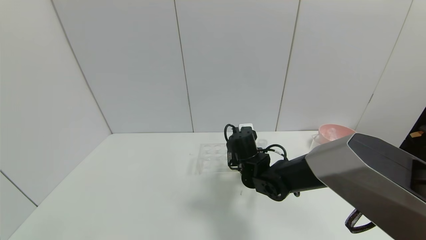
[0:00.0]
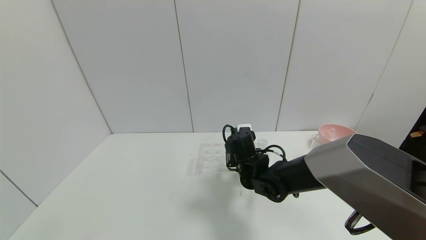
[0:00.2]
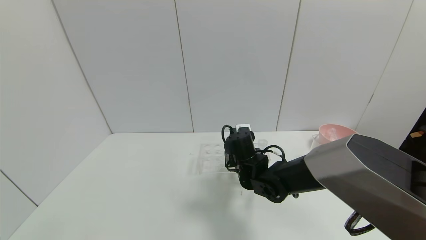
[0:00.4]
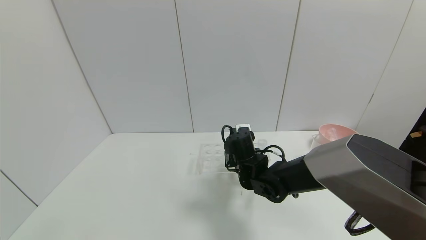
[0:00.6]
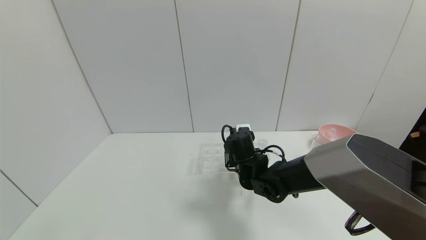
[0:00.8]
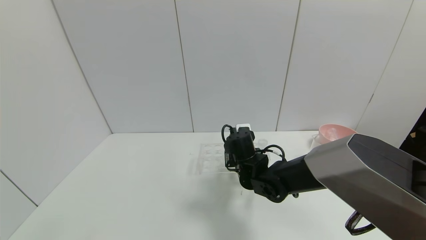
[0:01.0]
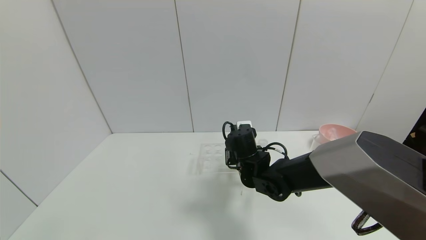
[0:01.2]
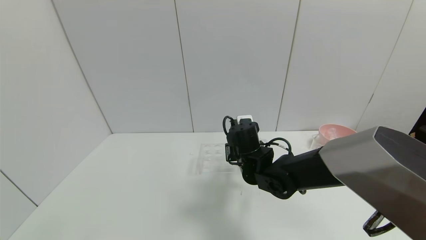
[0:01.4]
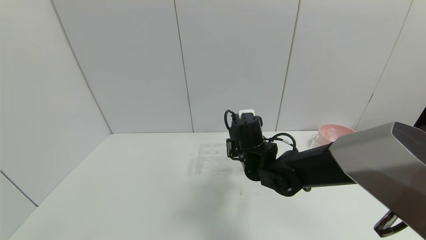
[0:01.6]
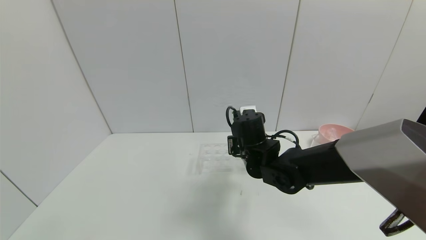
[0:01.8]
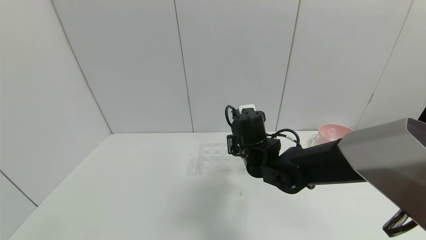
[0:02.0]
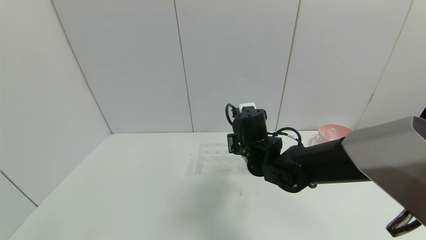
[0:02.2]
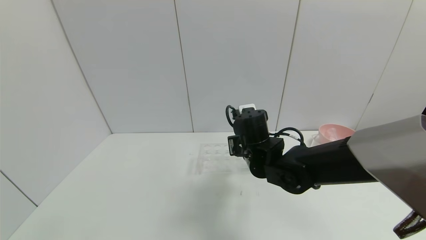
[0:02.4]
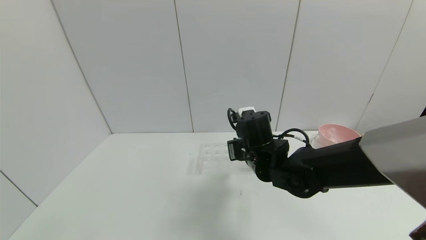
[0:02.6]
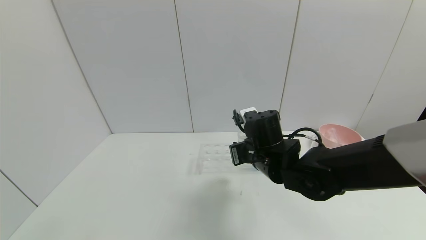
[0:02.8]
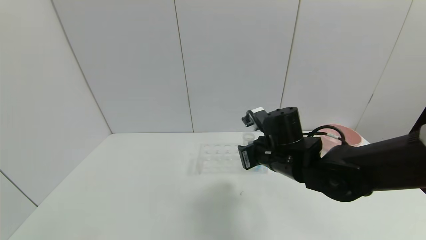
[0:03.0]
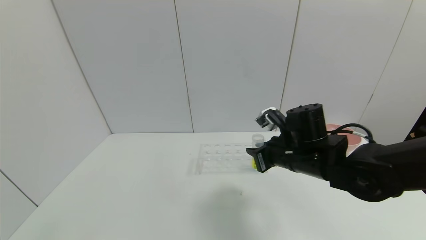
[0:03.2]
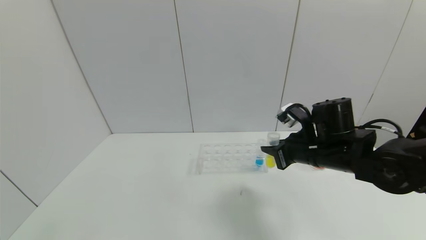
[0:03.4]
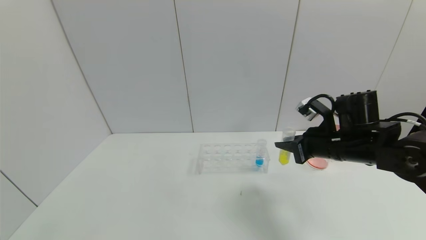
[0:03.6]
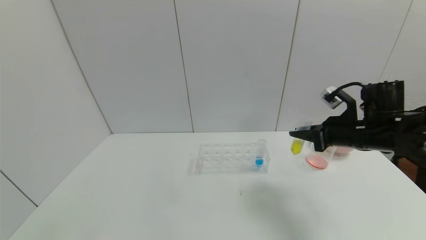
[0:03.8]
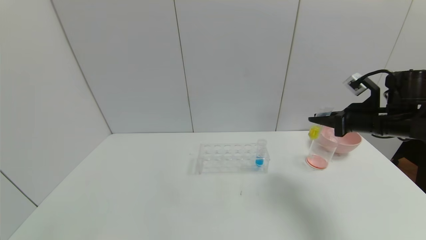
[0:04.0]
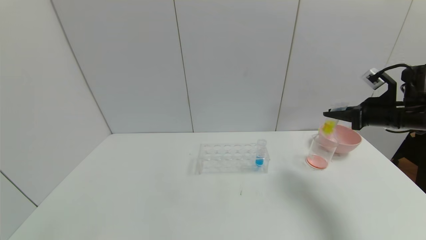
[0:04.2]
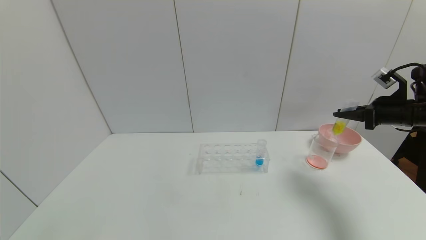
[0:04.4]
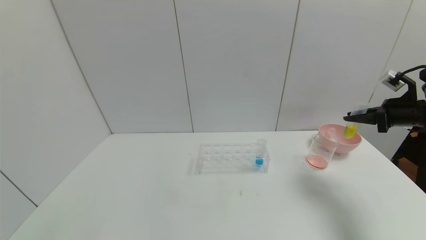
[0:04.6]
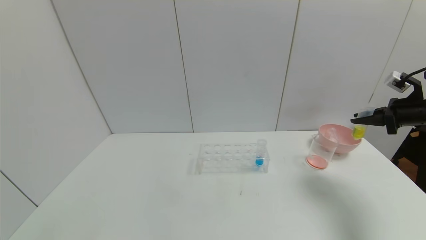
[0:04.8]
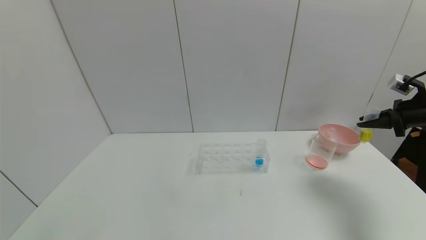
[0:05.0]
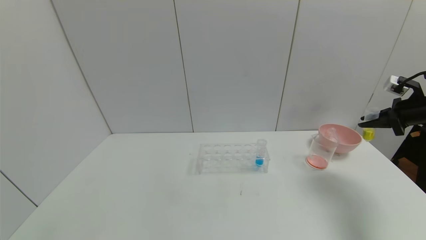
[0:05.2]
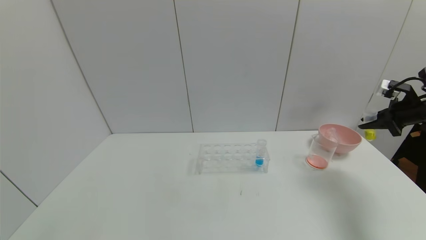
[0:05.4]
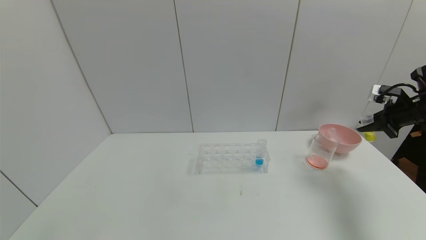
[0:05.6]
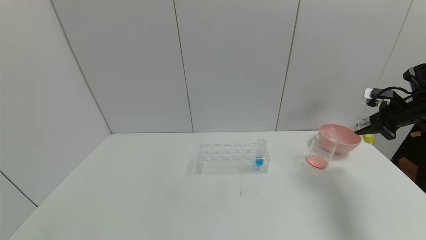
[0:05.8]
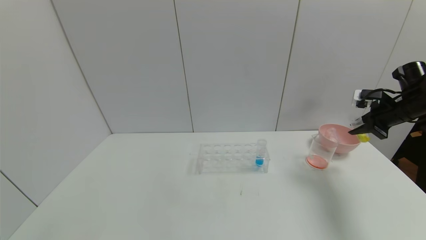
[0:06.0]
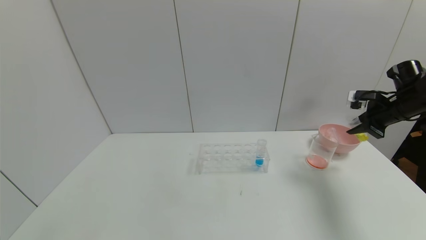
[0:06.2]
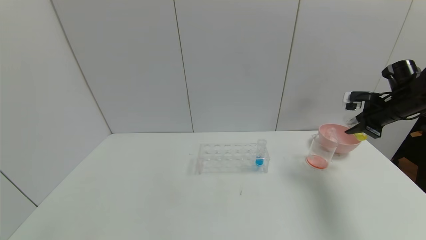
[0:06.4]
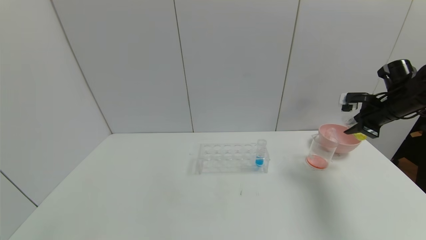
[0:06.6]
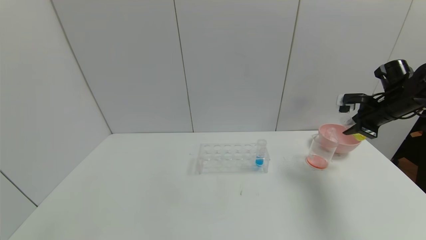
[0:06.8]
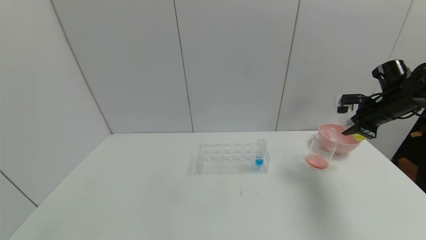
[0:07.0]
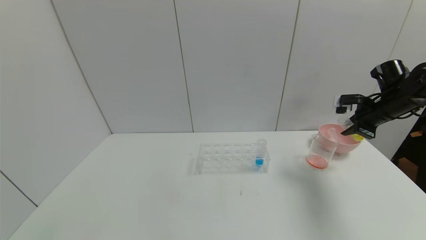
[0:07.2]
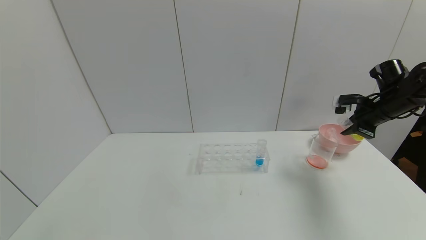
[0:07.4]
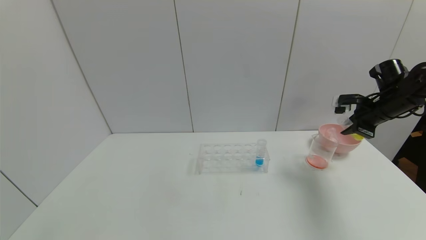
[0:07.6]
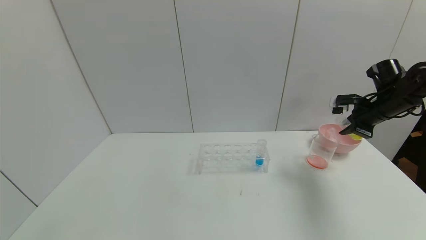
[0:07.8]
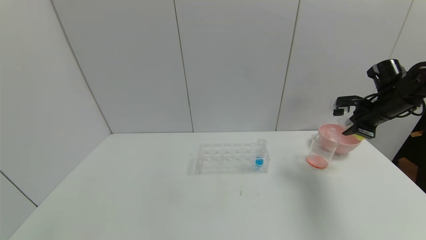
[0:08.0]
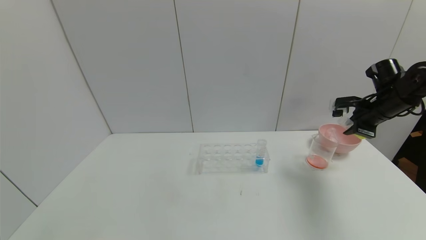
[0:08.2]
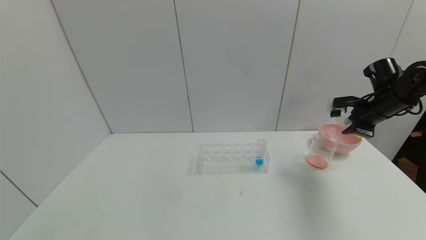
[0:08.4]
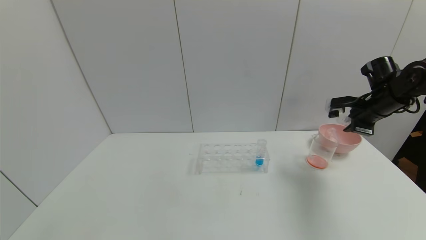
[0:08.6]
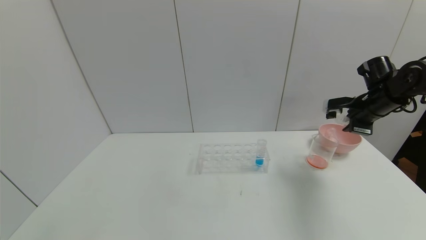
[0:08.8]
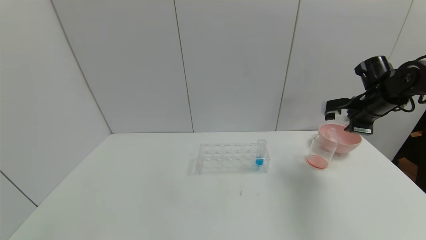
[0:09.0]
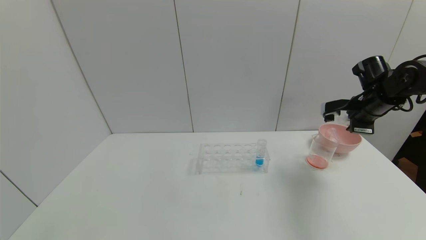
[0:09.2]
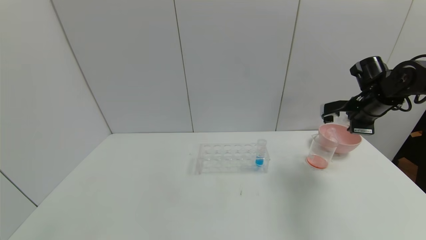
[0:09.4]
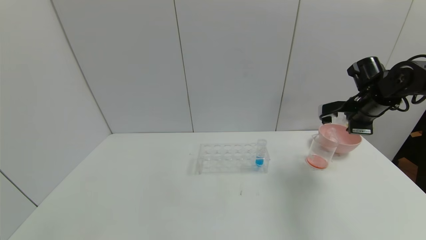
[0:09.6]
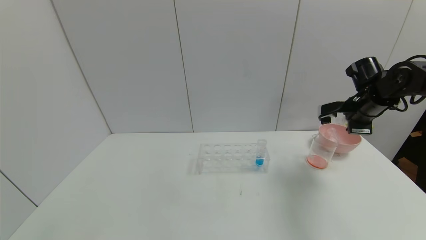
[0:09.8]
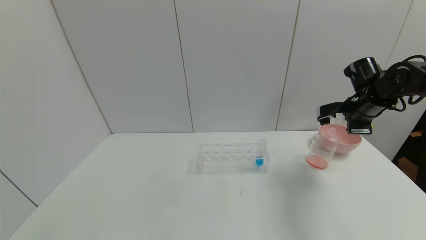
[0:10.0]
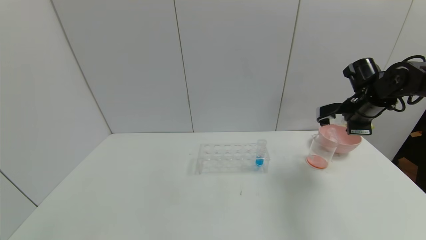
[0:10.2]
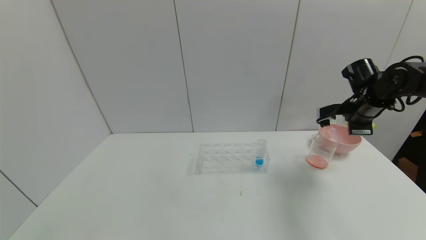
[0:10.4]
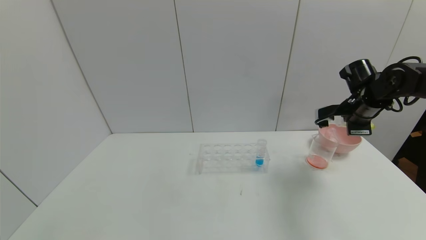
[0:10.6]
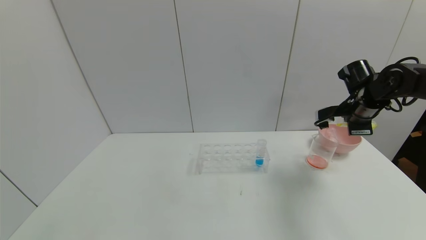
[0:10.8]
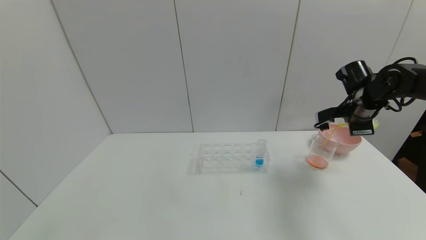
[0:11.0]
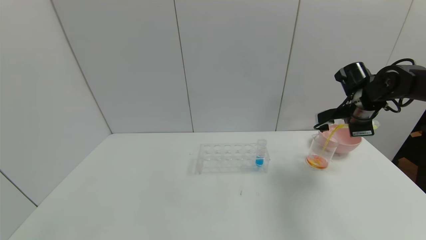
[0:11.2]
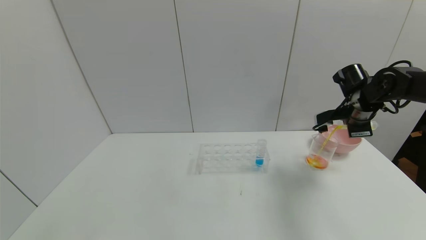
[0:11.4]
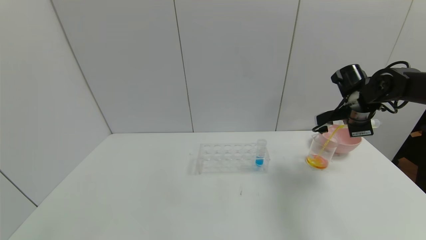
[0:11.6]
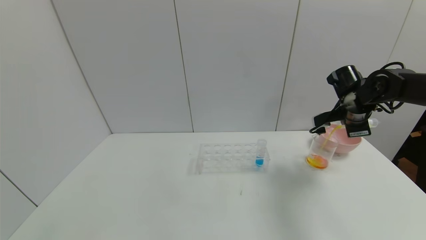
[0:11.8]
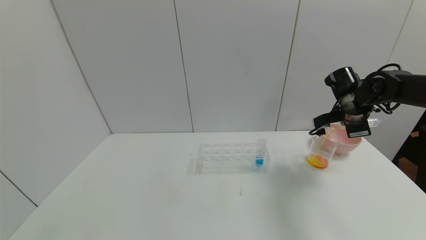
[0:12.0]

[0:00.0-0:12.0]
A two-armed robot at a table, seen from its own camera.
Task of the whole recording: pick up the test tube with yellow pigment and the test tube with red pigment by grippers and pour them into the beaker.
0:00.0 to 0:01.6: The right gripper ends up about 5 cm from where it was, and closes.
0:01.6 to 0:03.0: The right gripper travels to the right by about 5 cm.
0:03.0 to 0:04.4: The right gripper is displaced to the right by about 30 cm.
0:06.0 to 0:07.6: The grippers make only small movements.
0:07.6 to 0:09.0: There are only small adjustments of the grippers.
0:09.0 to 0:10.4: The grippers make only small movements.
0:10.4 to 0:12.0: The grippers make only small movements.

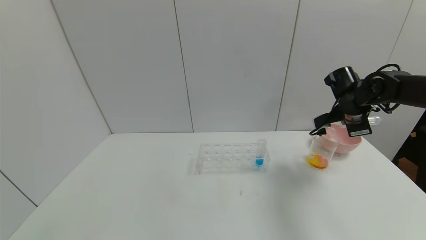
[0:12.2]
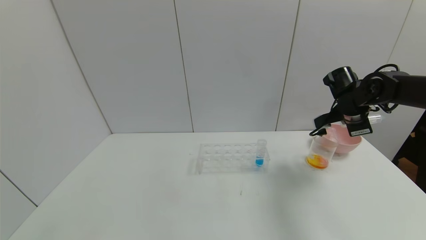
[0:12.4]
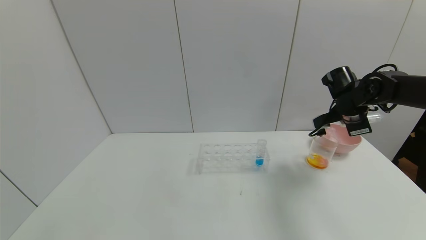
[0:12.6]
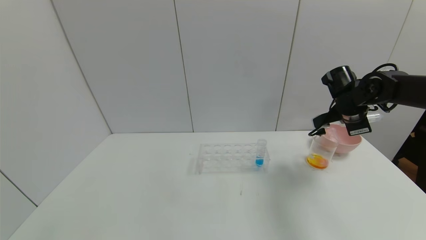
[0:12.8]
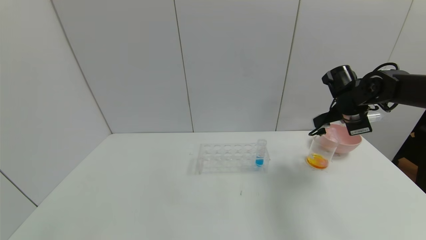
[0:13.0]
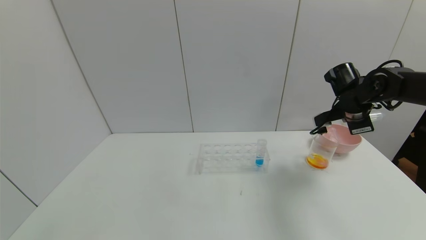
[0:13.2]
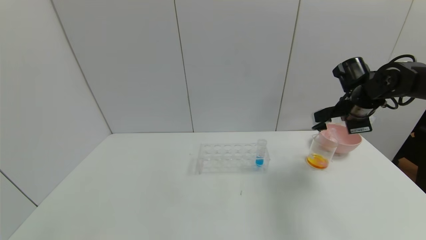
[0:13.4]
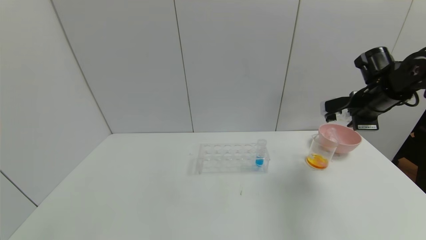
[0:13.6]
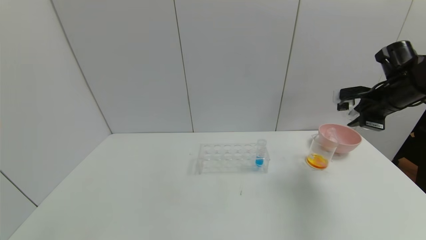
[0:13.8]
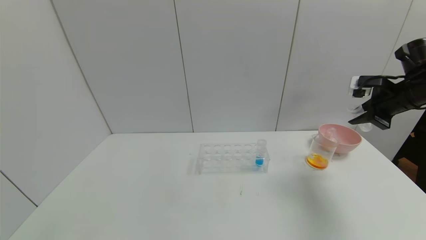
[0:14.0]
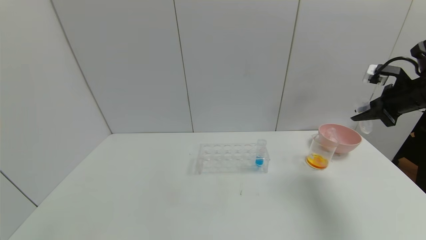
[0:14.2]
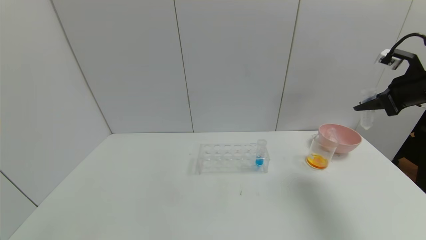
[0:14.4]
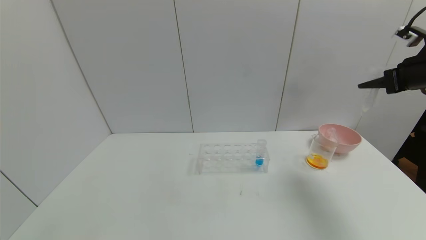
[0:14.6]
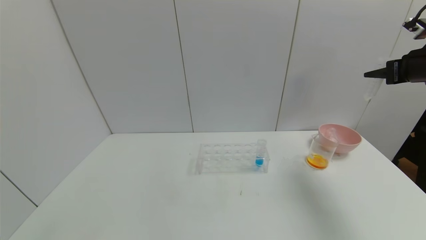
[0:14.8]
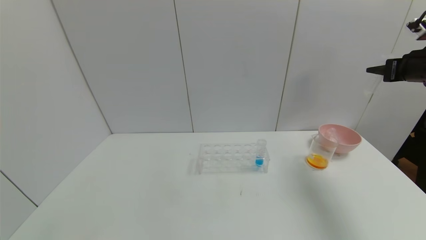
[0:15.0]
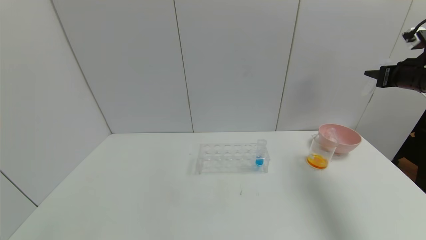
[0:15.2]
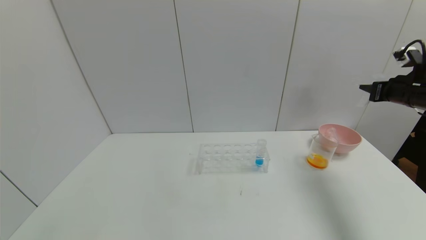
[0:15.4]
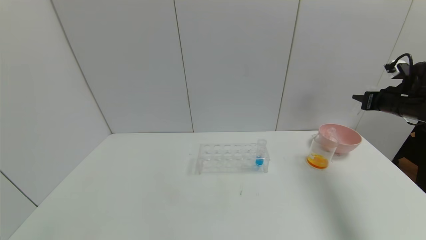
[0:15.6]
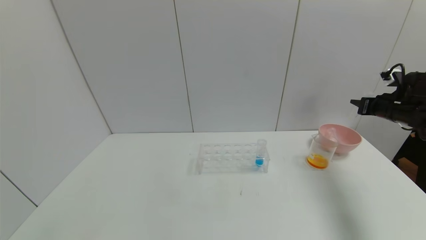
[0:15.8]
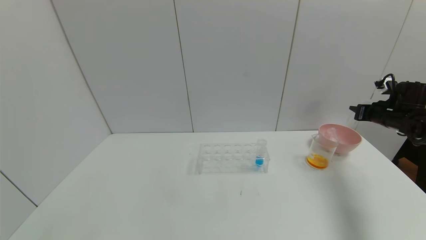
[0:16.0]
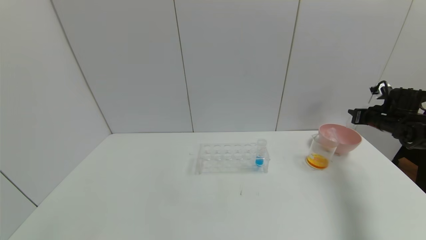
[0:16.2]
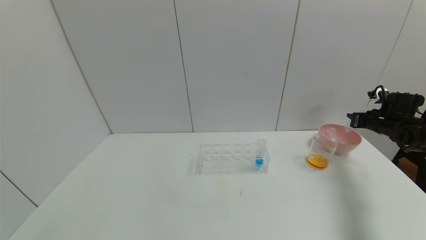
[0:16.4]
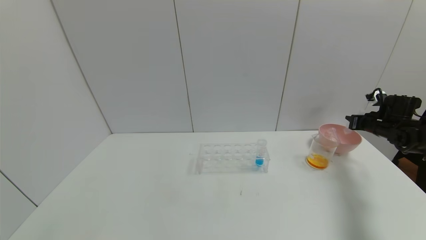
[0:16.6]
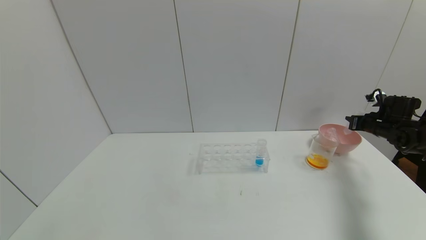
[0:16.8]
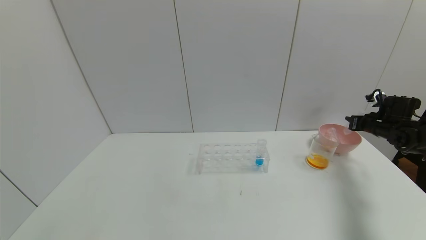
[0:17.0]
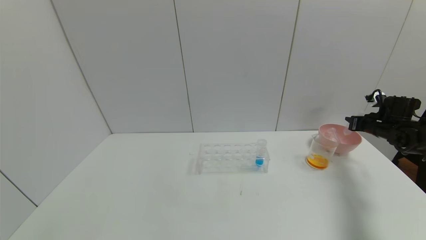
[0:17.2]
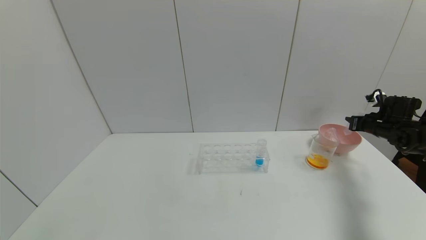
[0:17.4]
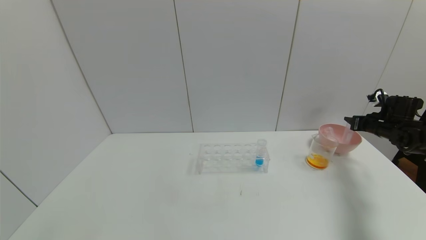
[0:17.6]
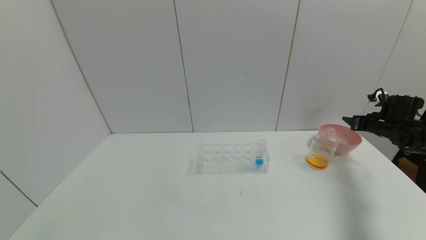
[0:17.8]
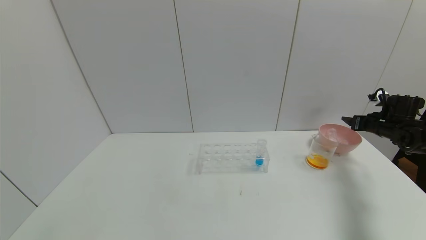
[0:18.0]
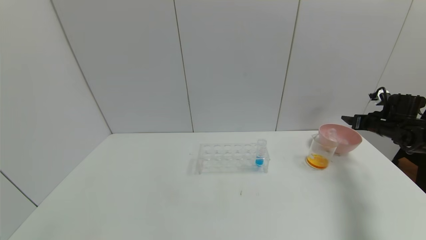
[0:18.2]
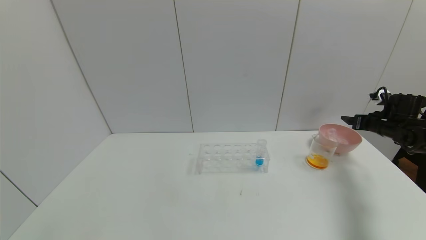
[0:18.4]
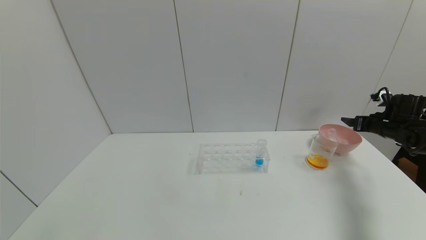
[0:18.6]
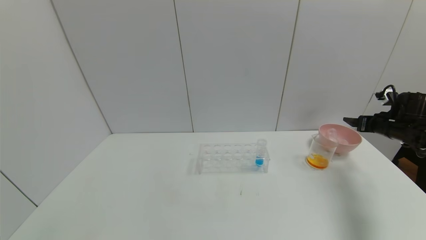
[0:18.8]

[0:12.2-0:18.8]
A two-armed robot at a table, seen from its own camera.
Task of the whole recording: pick up the test tube with yellow pigment and the test tube with red pigment by grippers and pour them into the beaker.
Step, 0:13.0 to 0:17.6: Place the test tube into the bowl with the right gripper.
0:12.2 to 0:13.8: The right gripper is displaced upward and to the right by approximately 5 cm.
0:13.8 to 0:15.4: The right gripper is displaced to the right by about 5 cm.
0:15.4 to 0:17.2: The right gripper shifts approximately 15 cm downward and forward.
0:17.2 to 0:18.8: The right gripper ends up roughly 5 cm from where it was, and opens.
